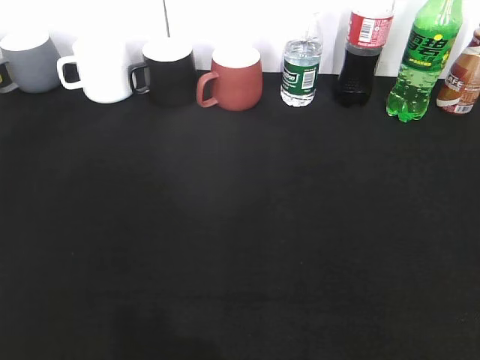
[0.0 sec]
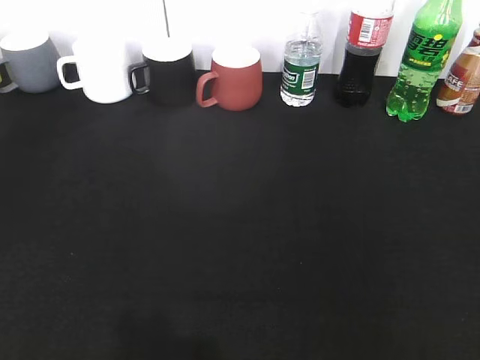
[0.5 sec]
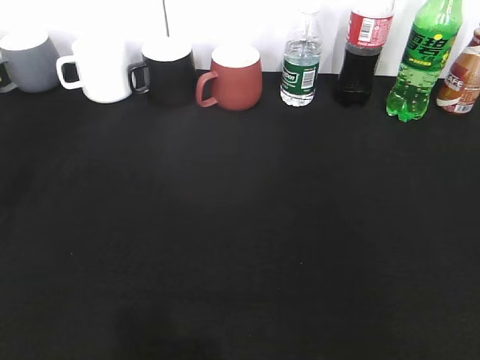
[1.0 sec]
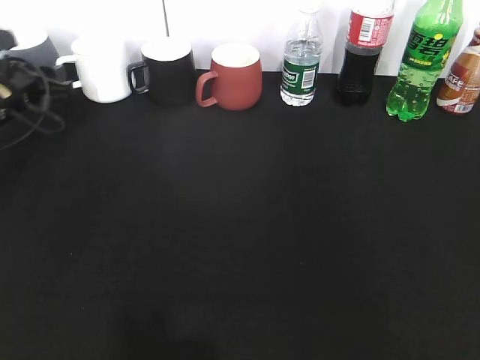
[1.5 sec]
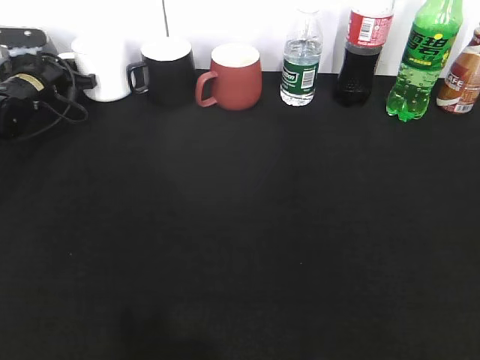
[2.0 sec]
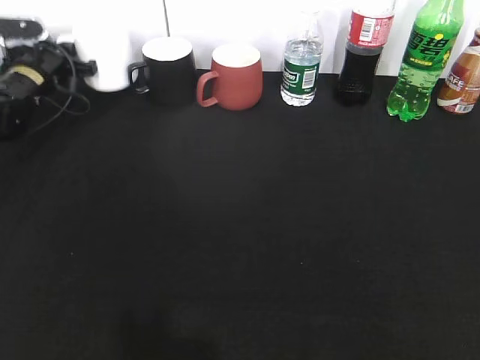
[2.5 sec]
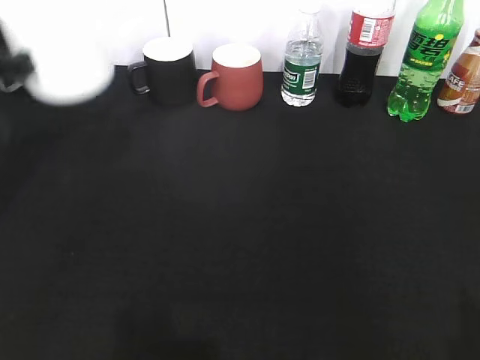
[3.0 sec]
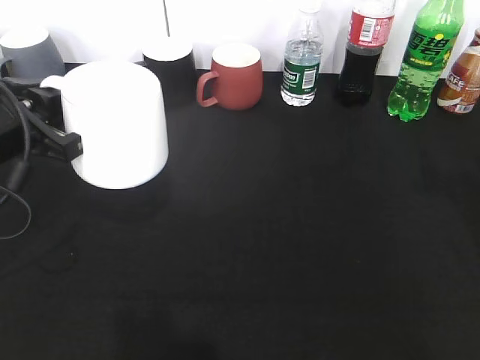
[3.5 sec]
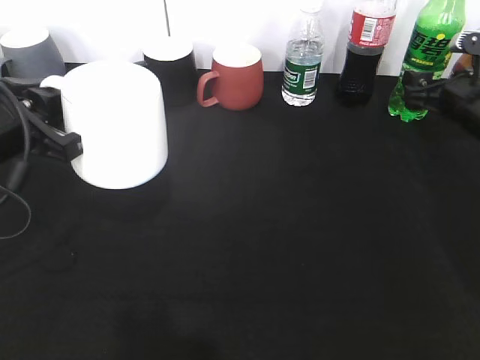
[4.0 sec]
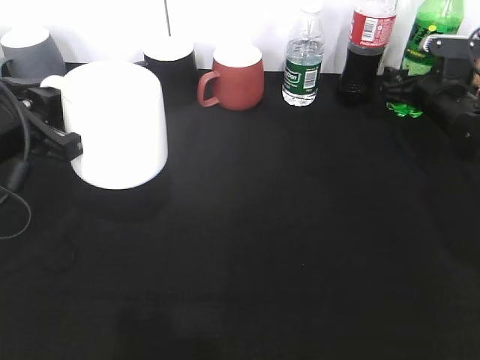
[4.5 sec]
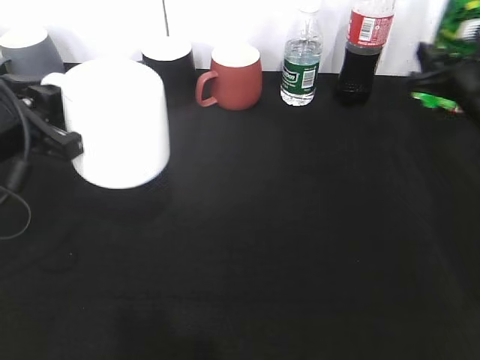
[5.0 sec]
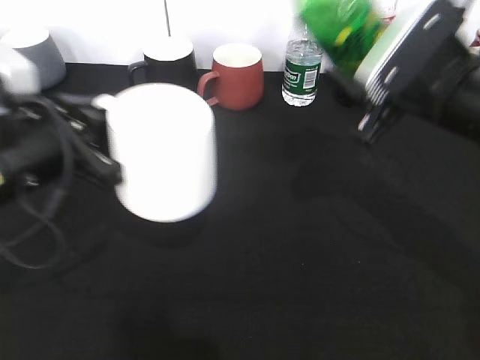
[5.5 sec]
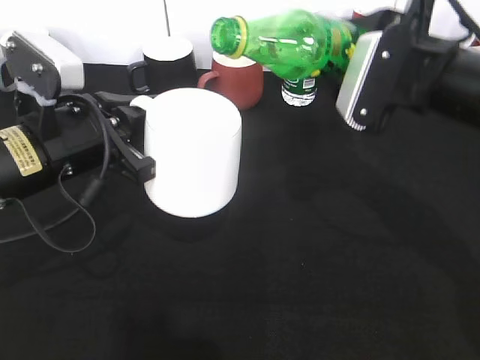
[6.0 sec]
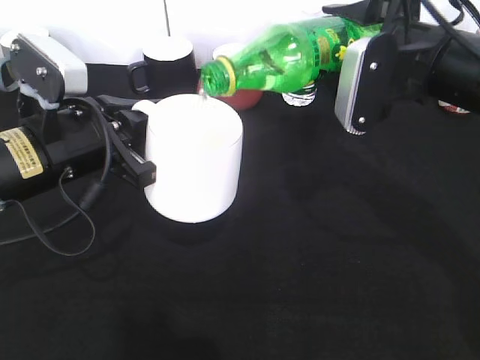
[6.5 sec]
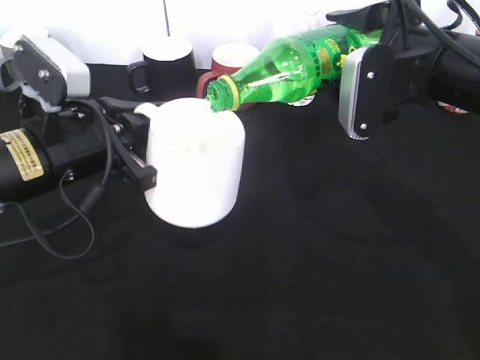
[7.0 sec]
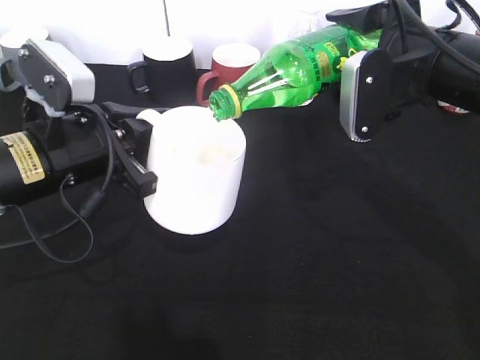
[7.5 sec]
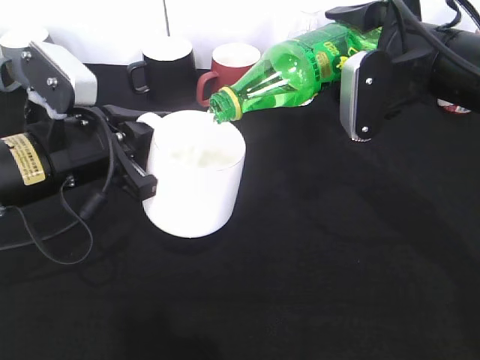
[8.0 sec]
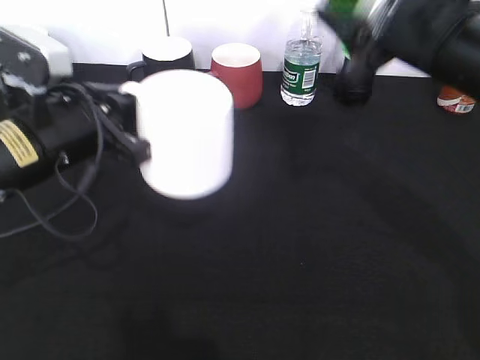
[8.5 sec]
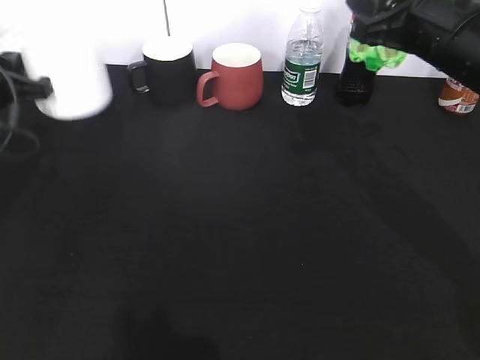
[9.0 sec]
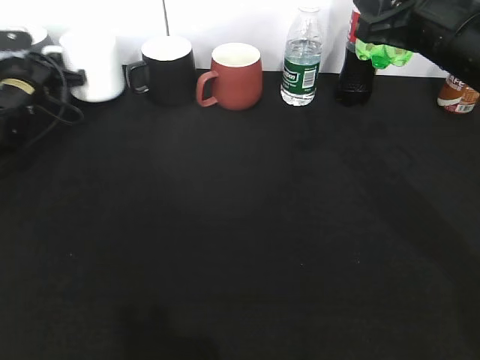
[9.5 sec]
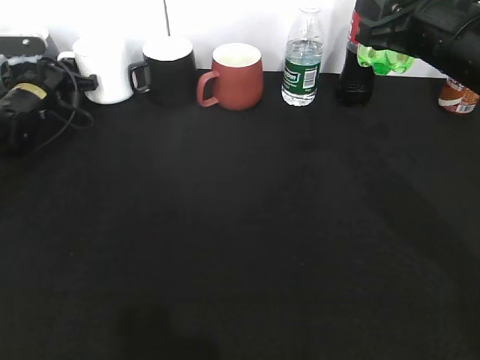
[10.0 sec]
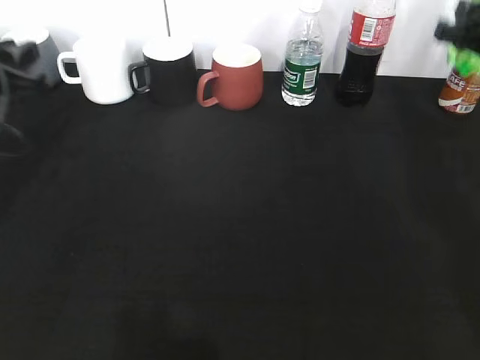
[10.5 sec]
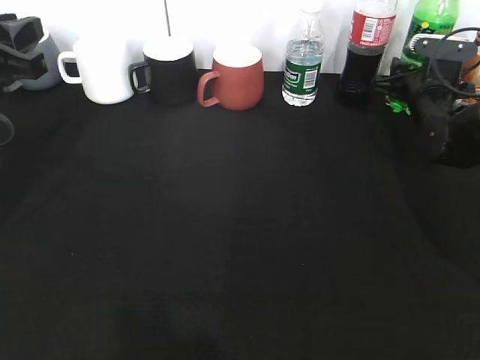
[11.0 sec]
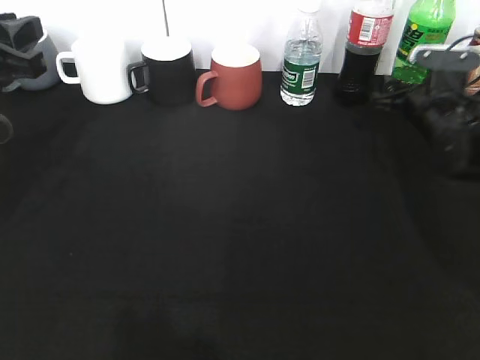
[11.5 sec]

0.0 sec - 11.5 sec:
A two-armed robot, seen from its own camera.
Step, 0.0 sec - 2.0 sec: Grasp the white cup with left gripper.
Step, 2.5 sec - 3.5 sec: Lift the white cup with left gripper.
Step, 4.0 sec - 4.5 sec: Grasp the bottle with sprite with right gripper.
Step, 5.0 sec - 8.0 sec: Pour the sprite from bottle to cup with right gripper.
0.0 sec - 2.0 sec: The left gripper goes approximately 50 cm forward, and closes its fingers.
2.0 sec - 4.0 sec: The right gripper is displaced forward by about 40 cm, while the left gripper shifts some 25 cm backward.
4.0 sec - 6.0 sec: The left gripper heads to the right, covering some 5 cm, while the right gripper goes some 20 cm to the left, upward and backward, and closes.
7.5 sec - 9.5 sec: The left gripper shifts about 30 cm forward and to the left.
9.5 sec - 11.5 sec: The right gripper heads downward, forward and to the right, covering some 20 cm, and opens up; the left gripper travels backward and upward by roughly 25 cm, and opens up.

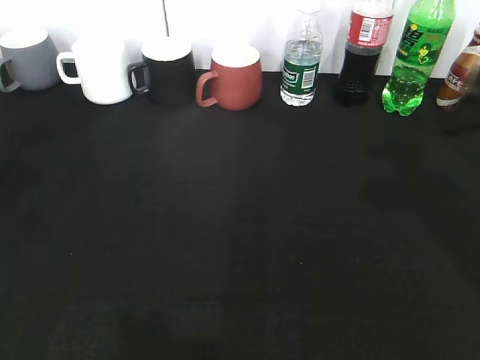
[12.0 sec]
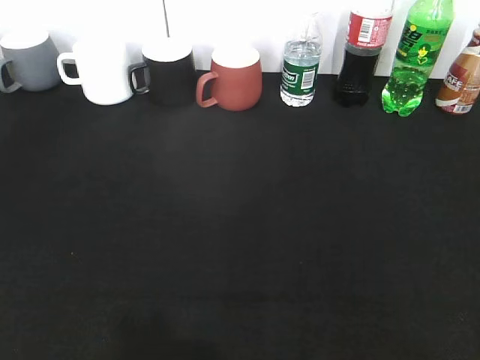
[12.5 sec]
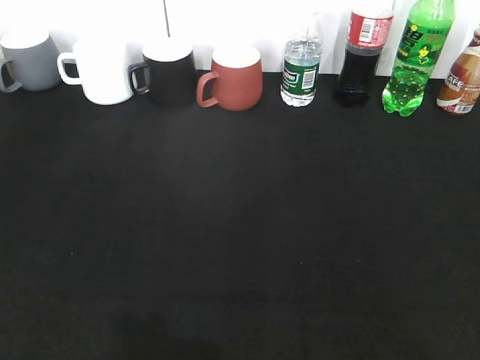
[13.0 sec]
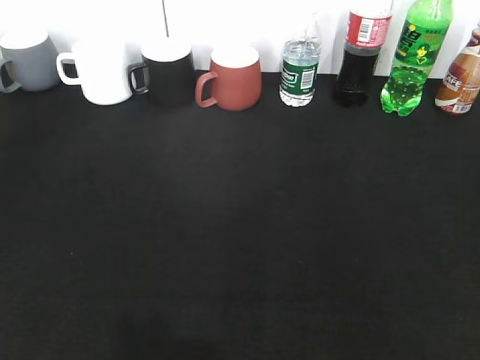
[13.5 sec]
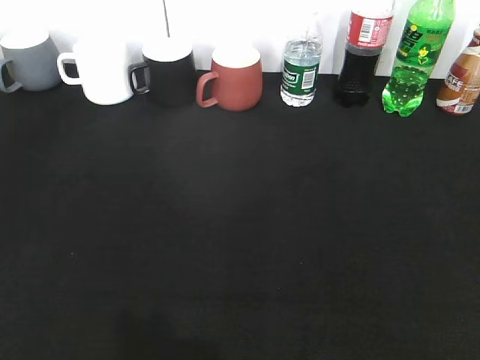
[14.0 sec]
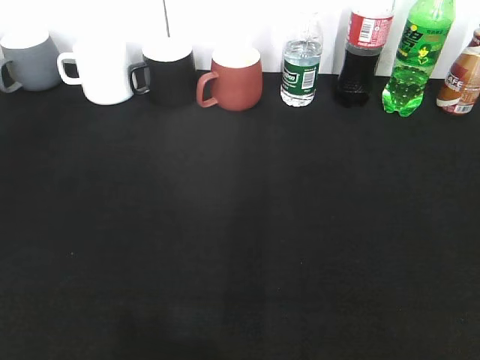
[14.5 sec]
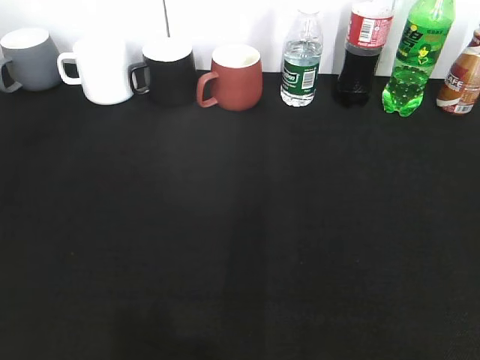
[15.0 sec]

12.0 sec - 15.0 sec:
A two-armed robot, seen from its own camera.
12.0 sec - 13.5 sec: The grippers both shift backward by roughly 20 cm.
13.5 sec - 15.0 sec: The left gripper closes up.
